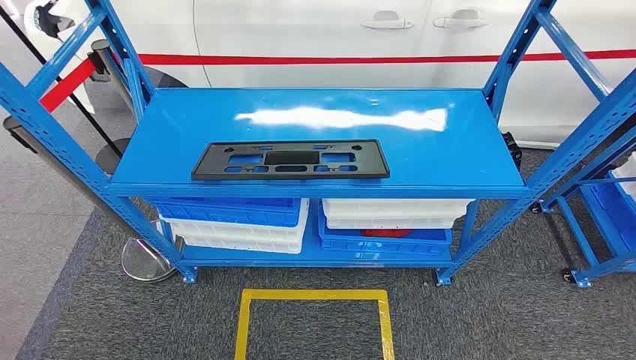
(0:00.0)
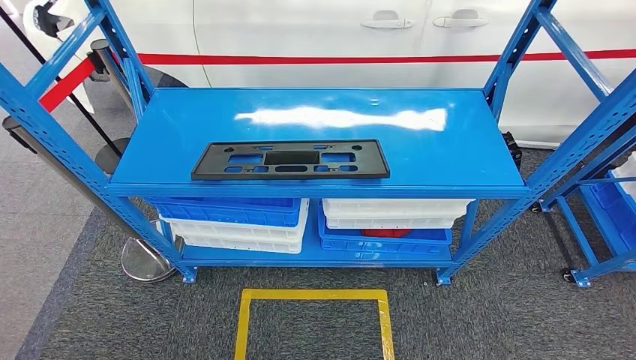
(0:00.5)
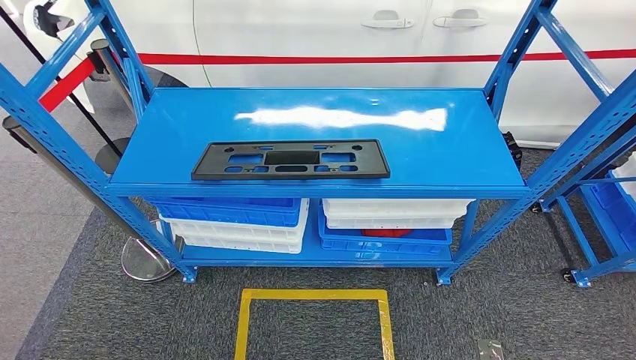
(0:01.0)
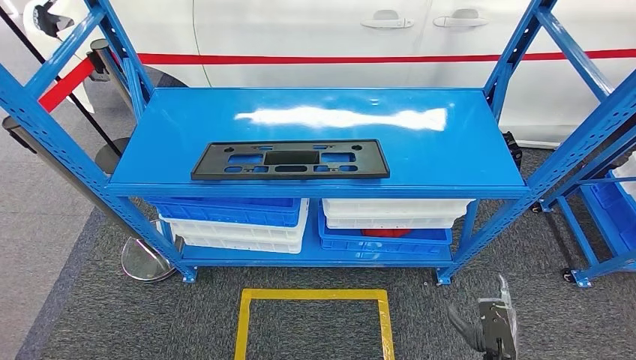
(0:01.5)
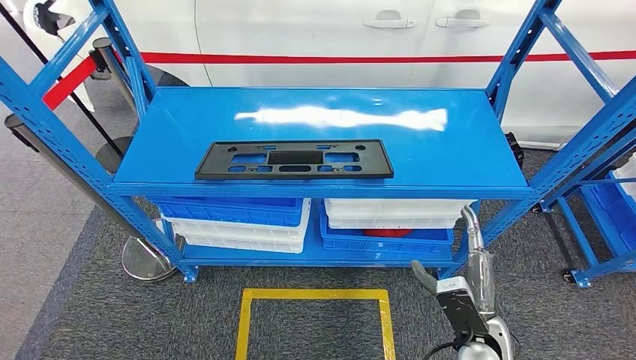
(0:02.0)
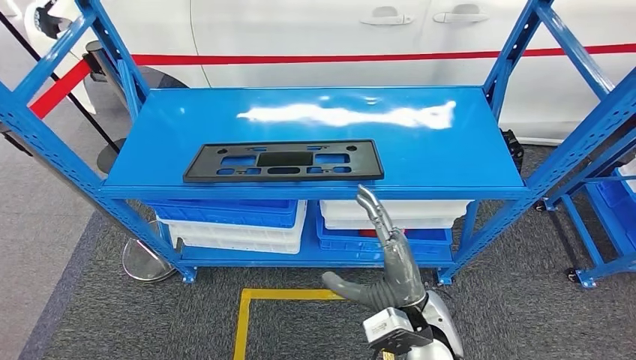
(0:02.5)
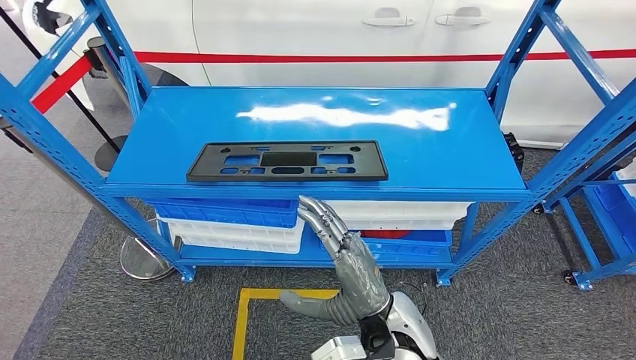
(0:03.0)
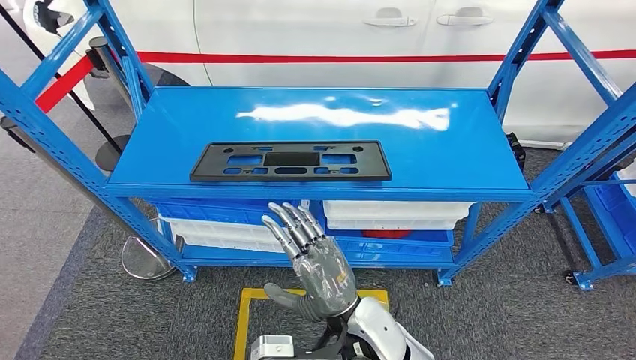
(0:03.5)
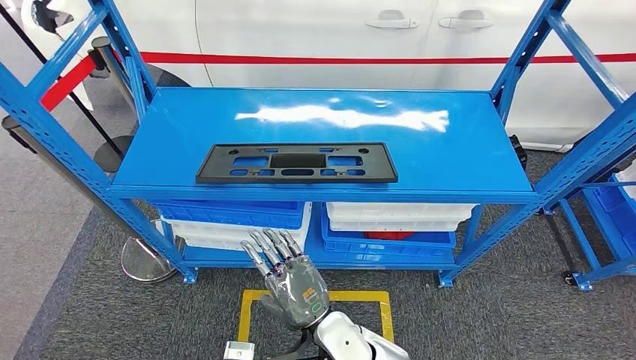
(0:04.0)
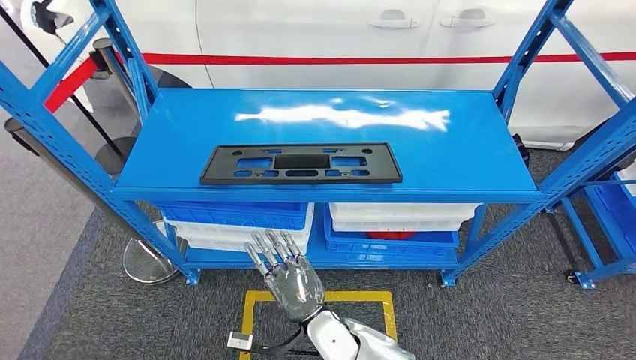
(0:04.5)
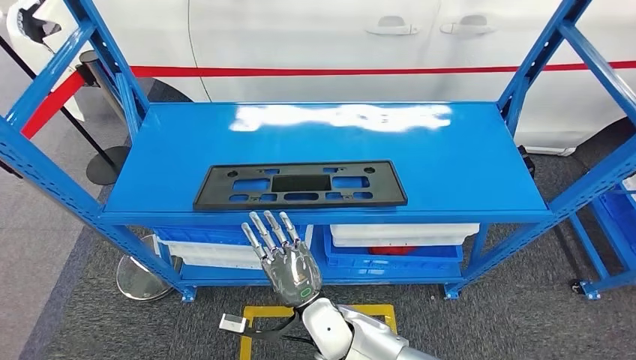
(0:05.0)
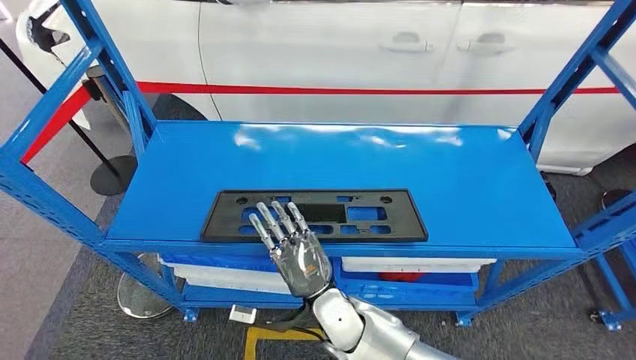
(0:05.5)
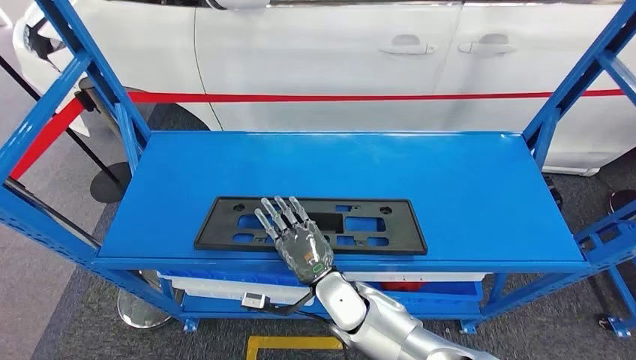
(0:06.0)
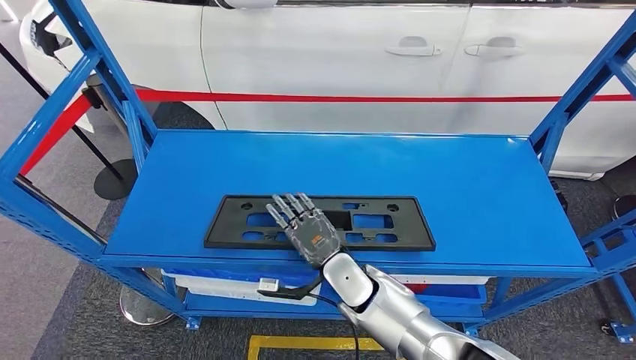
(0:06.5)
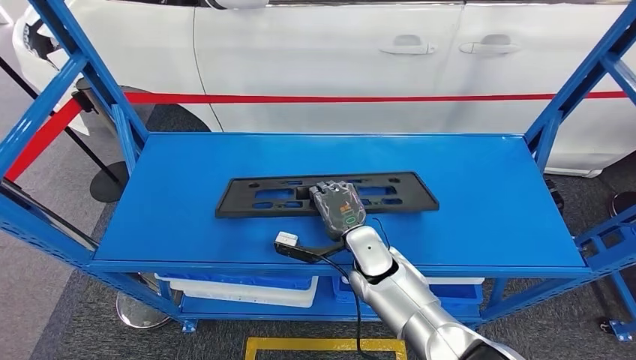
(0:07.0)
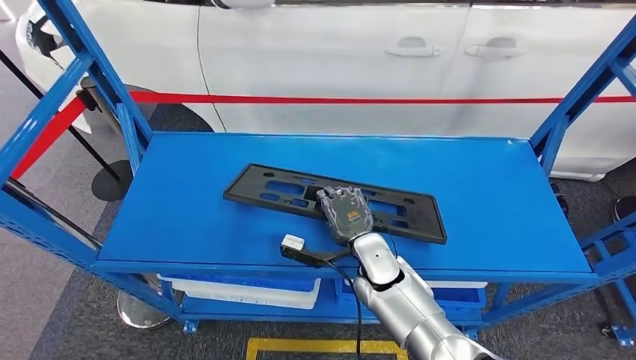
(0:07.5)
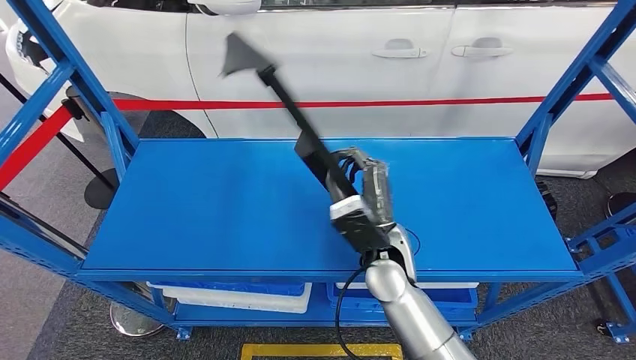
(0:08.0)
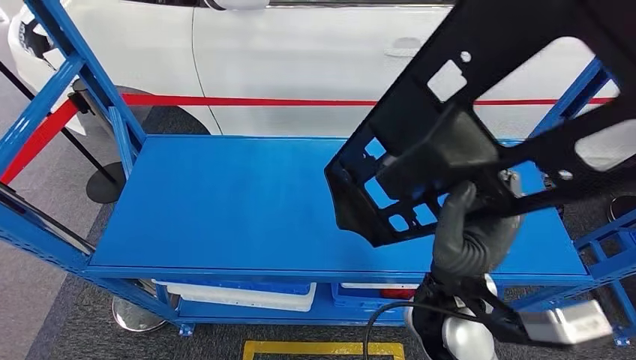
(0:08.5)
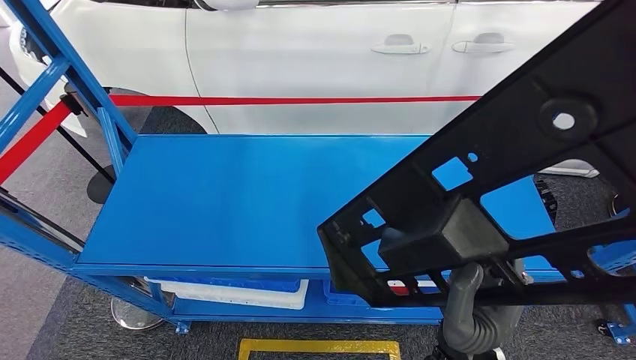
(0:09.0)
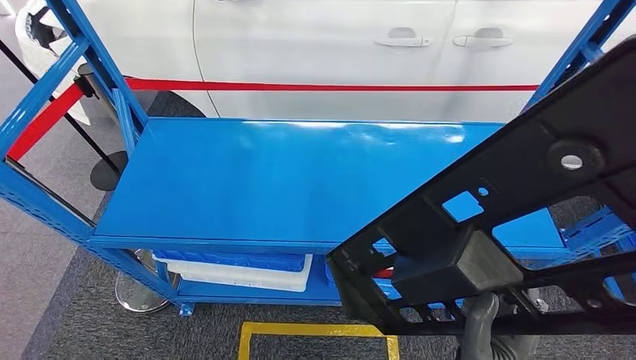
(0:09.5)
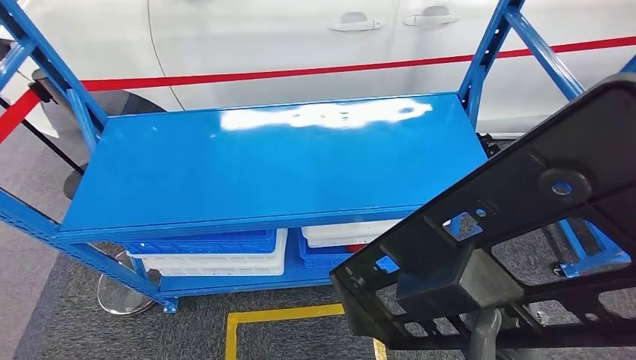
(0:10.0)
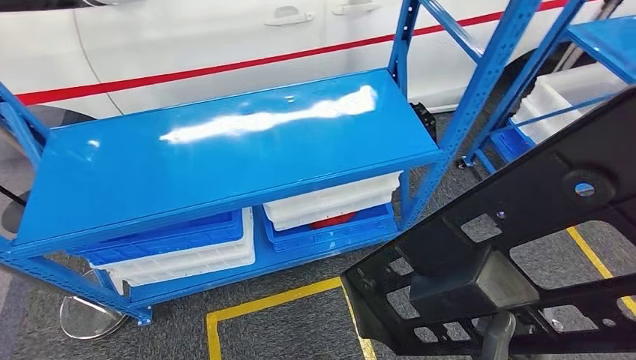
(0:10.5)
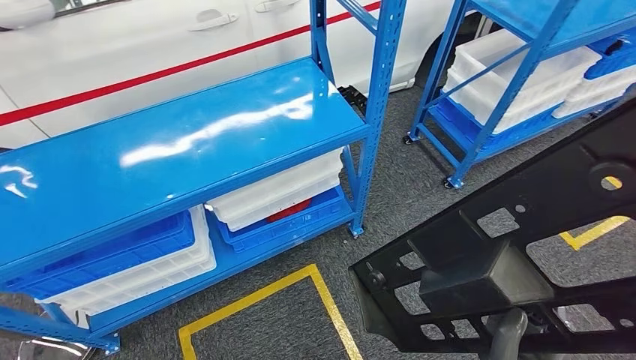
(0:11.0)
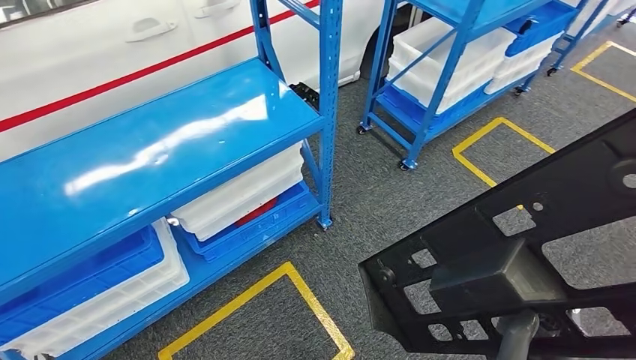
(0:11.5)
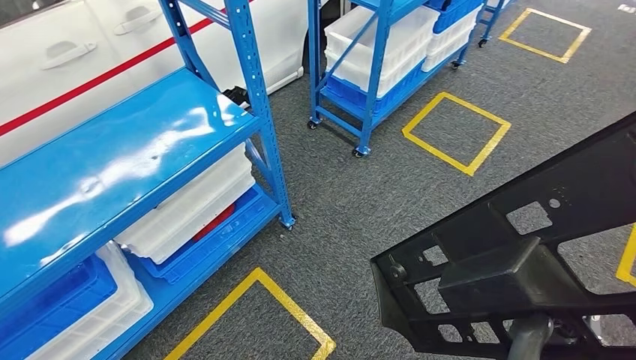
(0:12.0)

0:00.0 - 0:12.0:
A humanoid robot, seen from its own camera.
Step, 0:00.0 - 0:10.0: Pick up the large parts from the shelf.
0:02.0 - 0:04.0: The right hand moves to the left, some 25 cm.

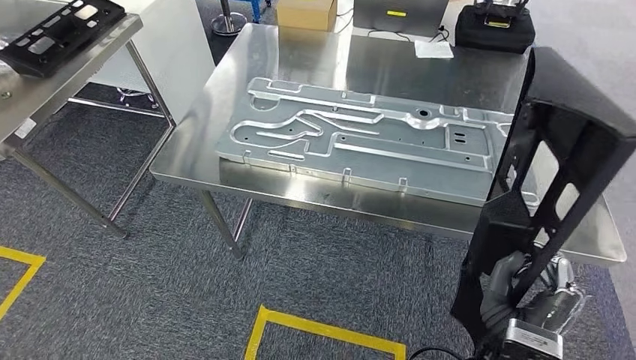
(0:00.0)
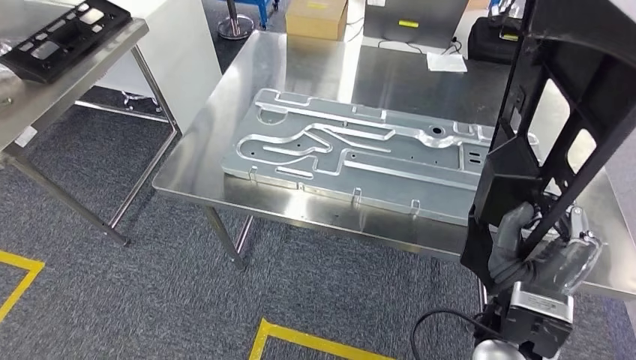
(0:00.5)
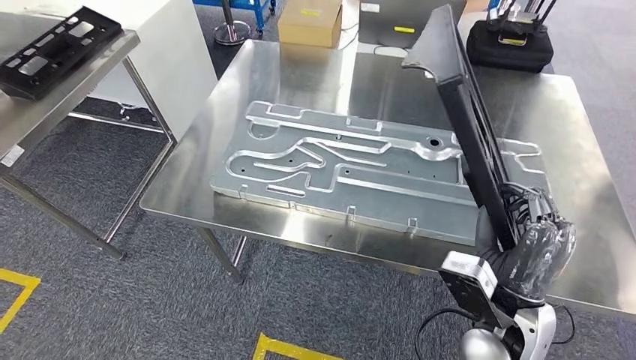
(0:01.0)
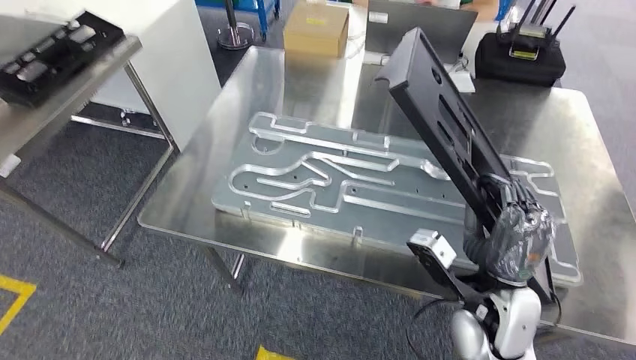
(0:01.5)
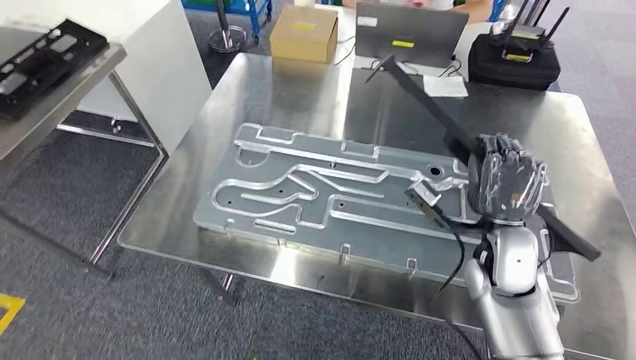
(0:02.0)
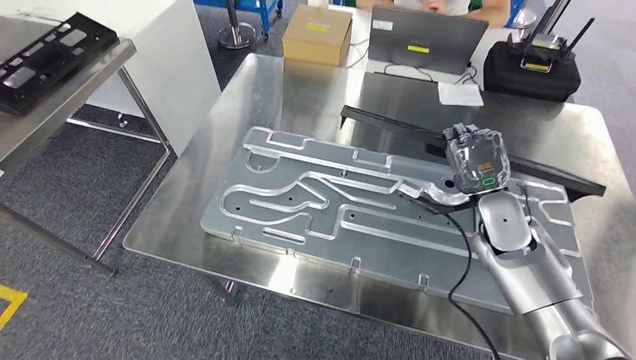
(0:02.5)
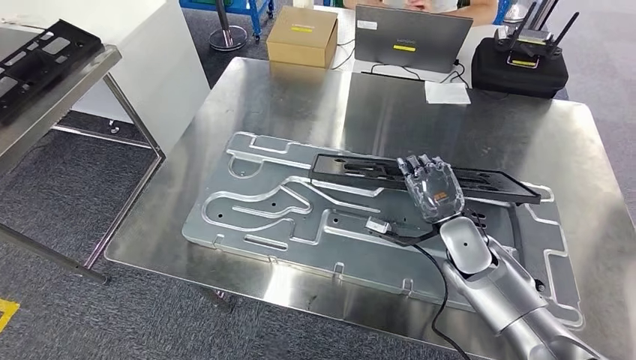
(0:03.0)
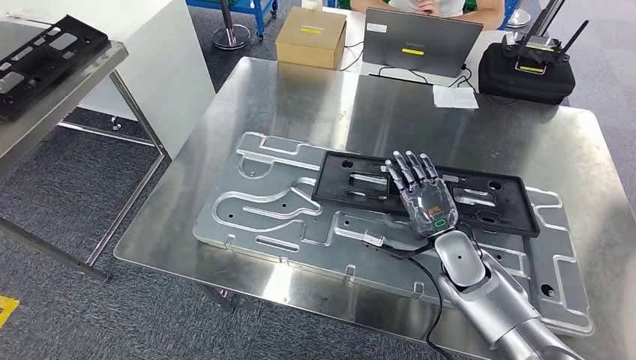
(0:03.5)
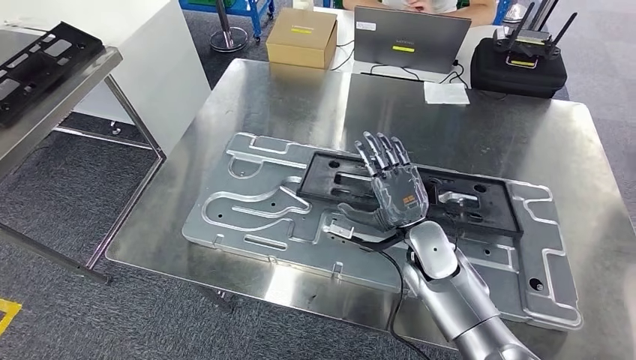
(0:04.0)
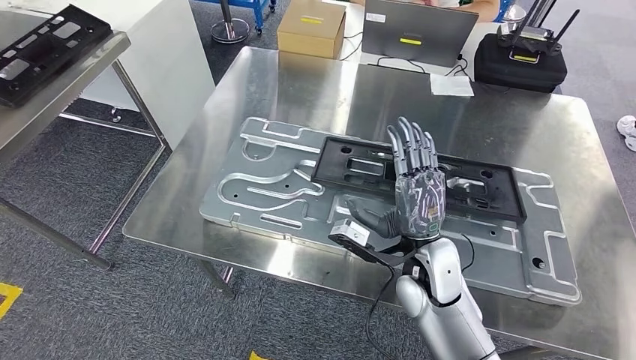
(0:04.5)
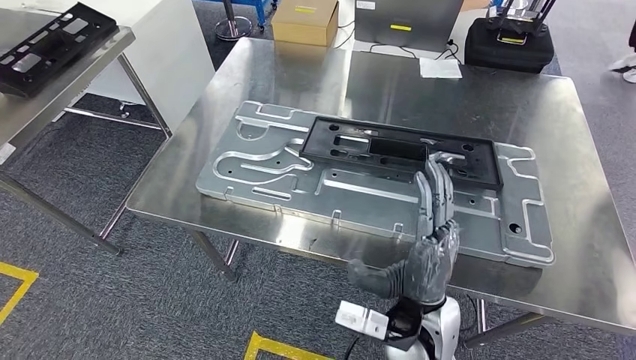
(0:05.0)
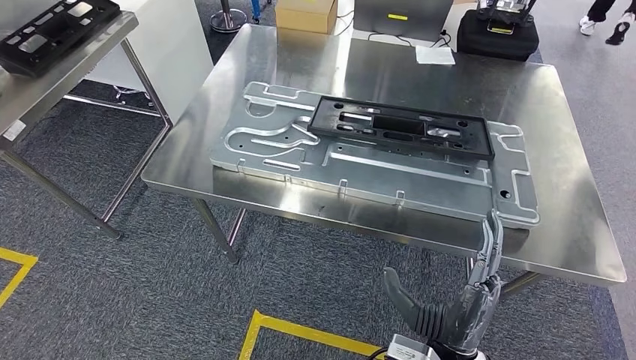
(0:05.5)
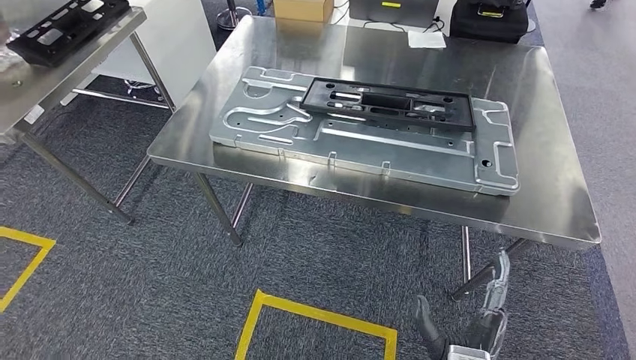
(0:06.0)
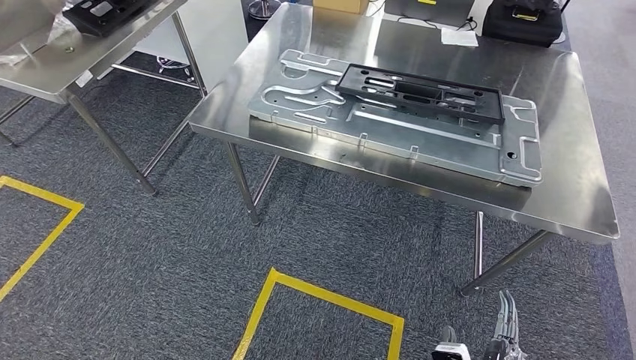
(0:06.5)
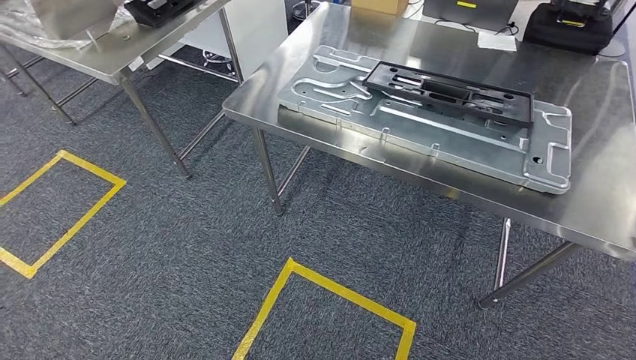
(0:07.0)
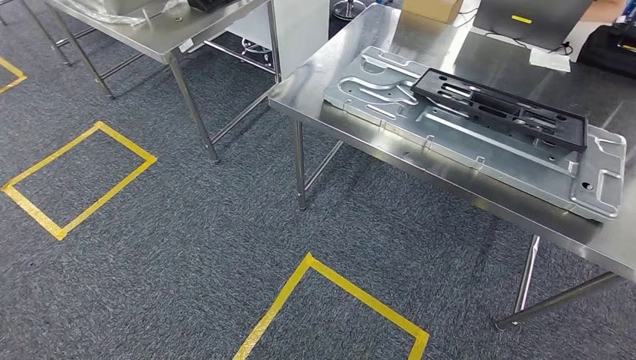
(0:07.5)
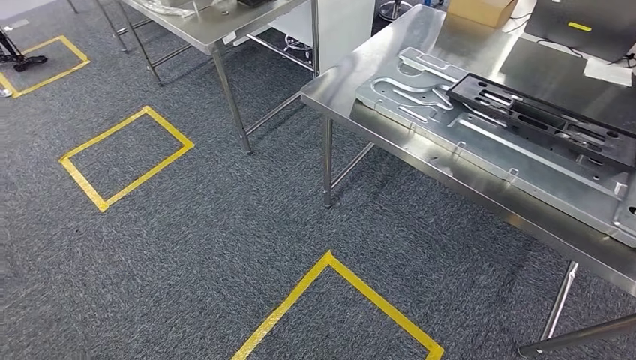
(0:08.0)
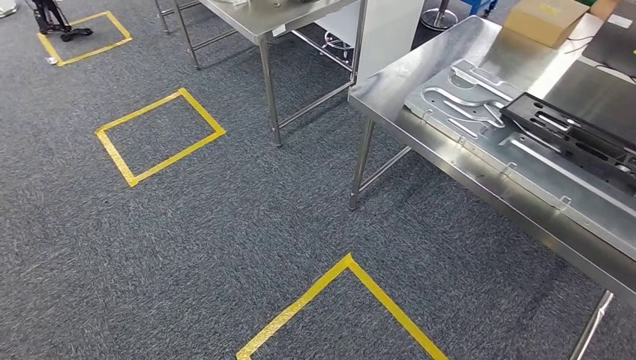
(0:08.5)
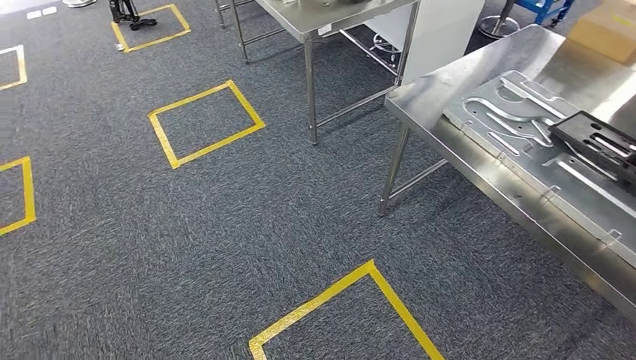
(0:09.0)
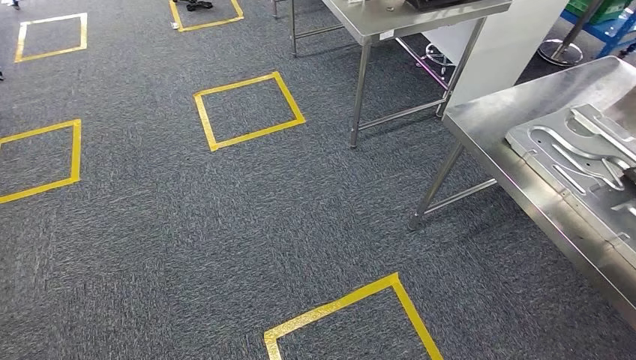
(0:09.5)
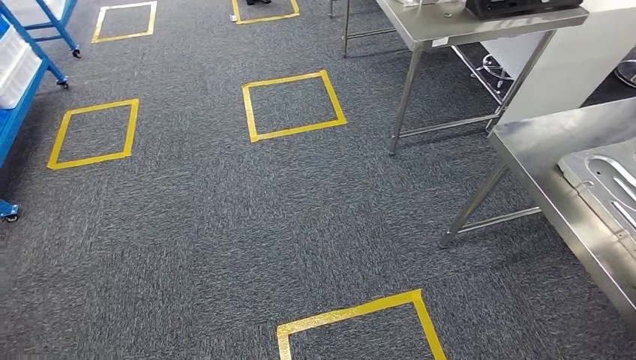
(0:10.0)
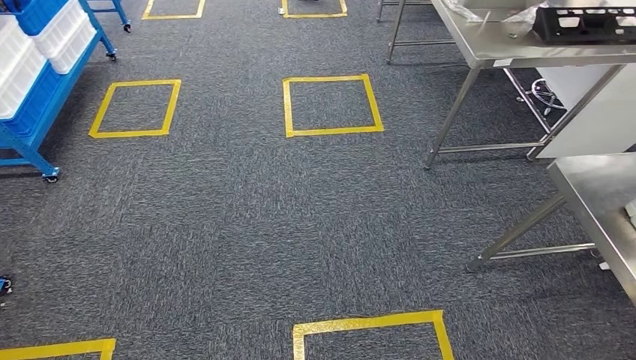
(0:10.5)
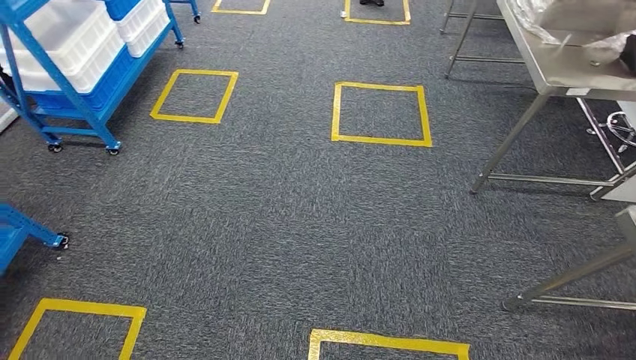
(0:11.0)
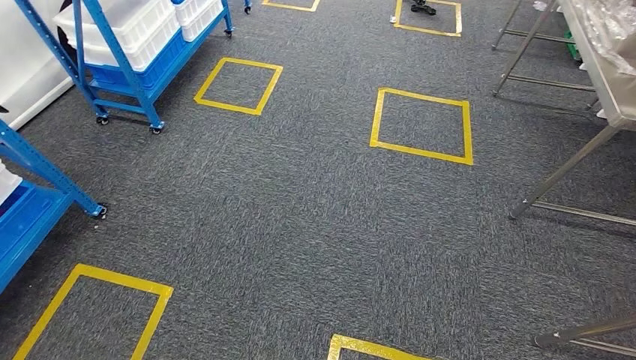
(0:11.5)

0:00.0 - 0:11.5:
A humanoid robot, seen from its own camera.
Step, 0:01.0 - 0:06.0: Insert the large parts into the corresponding slots on the workbench.